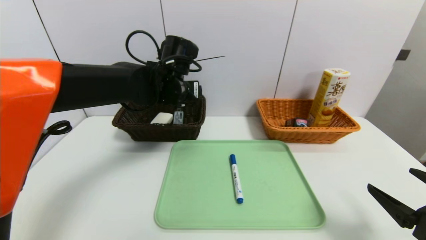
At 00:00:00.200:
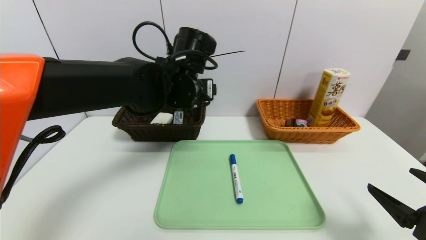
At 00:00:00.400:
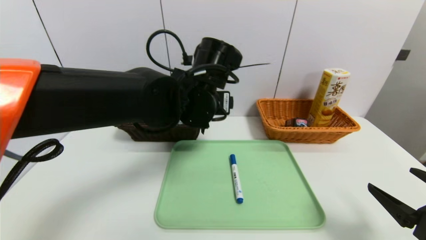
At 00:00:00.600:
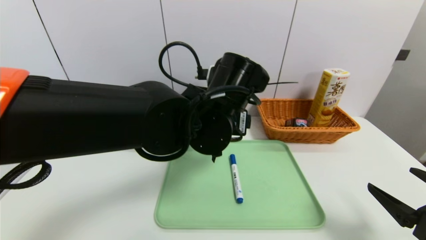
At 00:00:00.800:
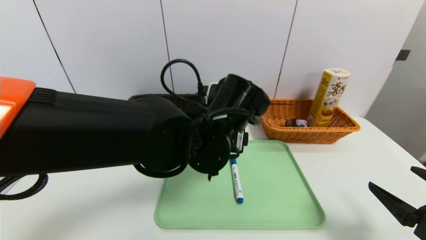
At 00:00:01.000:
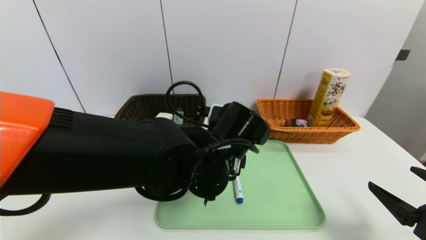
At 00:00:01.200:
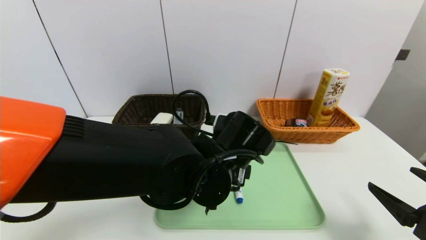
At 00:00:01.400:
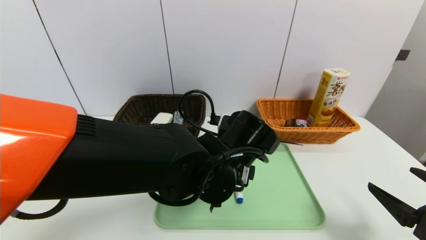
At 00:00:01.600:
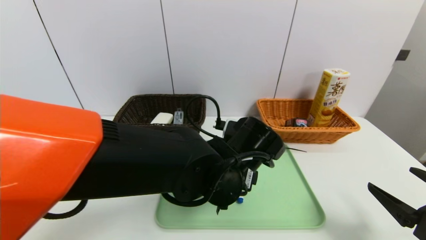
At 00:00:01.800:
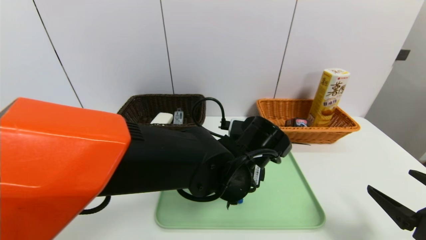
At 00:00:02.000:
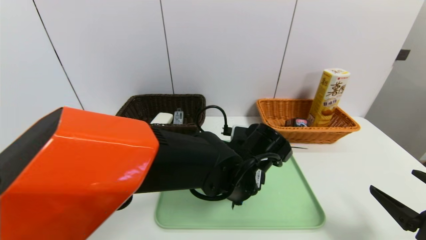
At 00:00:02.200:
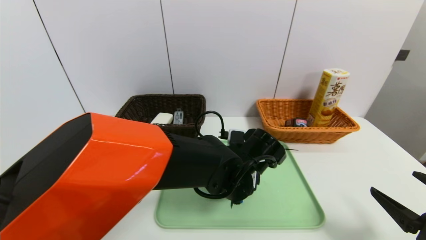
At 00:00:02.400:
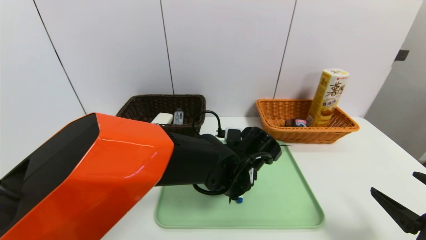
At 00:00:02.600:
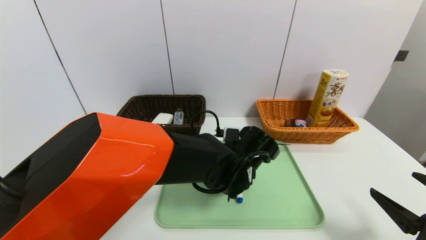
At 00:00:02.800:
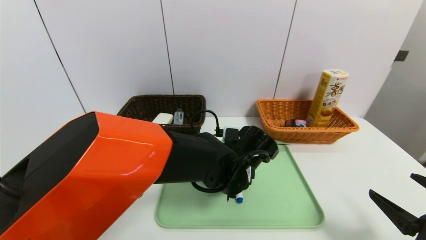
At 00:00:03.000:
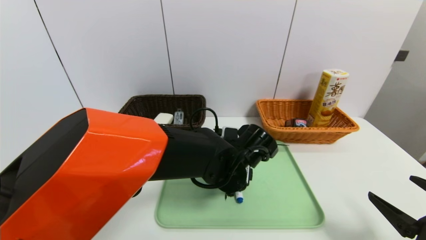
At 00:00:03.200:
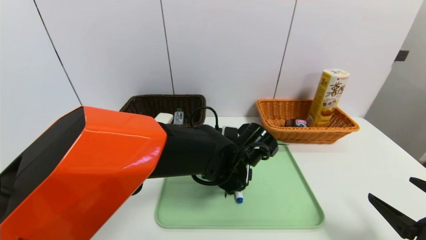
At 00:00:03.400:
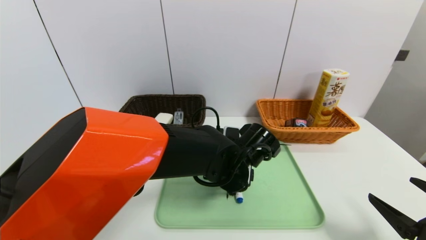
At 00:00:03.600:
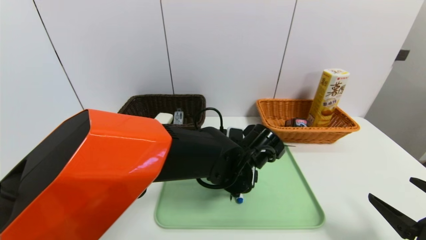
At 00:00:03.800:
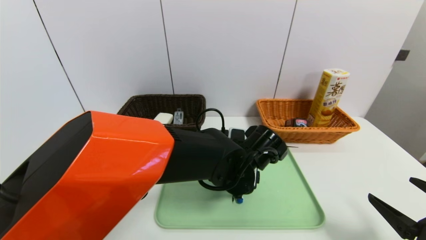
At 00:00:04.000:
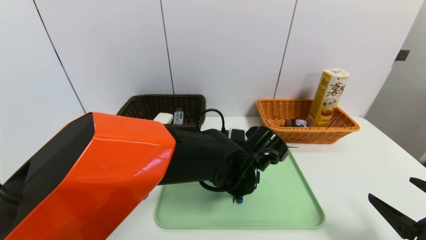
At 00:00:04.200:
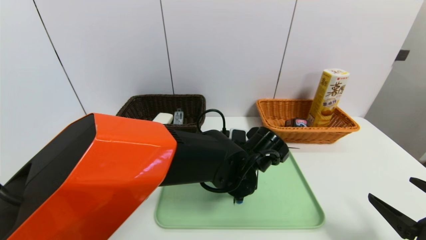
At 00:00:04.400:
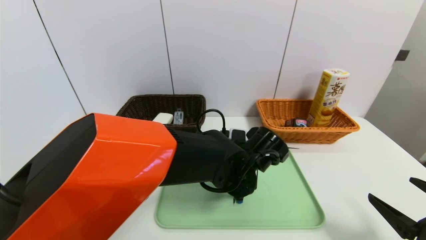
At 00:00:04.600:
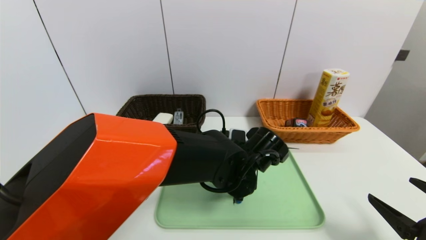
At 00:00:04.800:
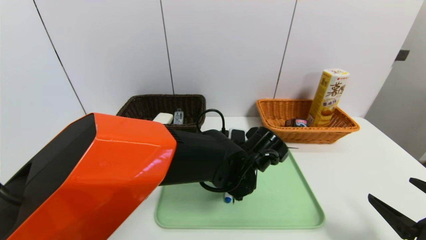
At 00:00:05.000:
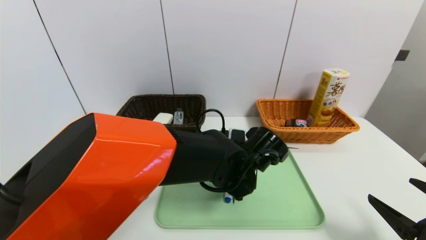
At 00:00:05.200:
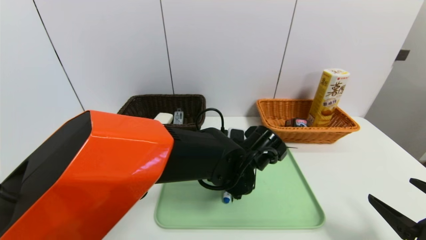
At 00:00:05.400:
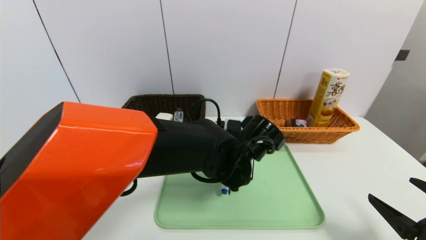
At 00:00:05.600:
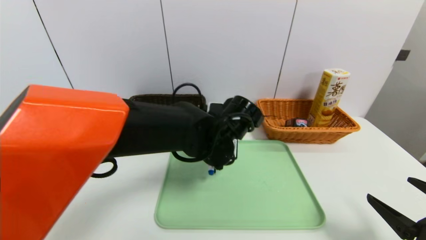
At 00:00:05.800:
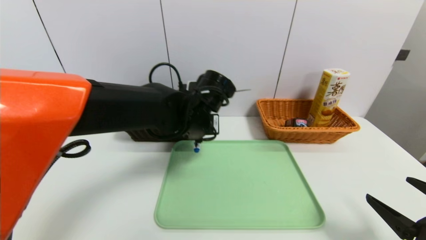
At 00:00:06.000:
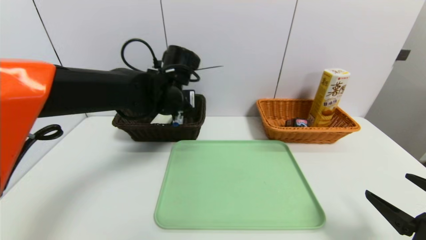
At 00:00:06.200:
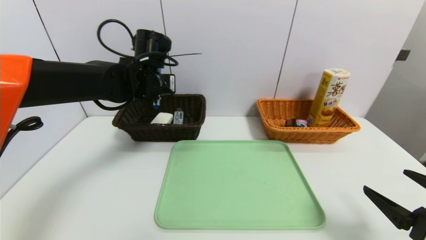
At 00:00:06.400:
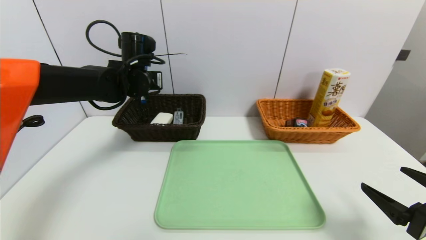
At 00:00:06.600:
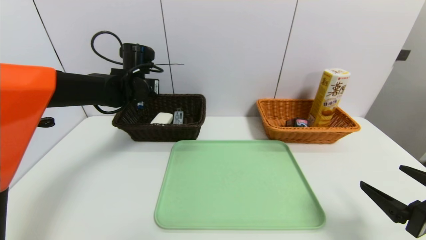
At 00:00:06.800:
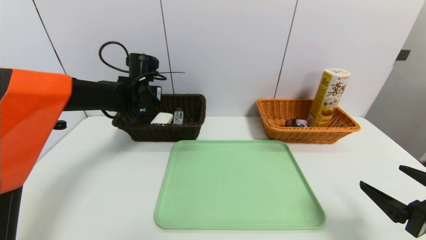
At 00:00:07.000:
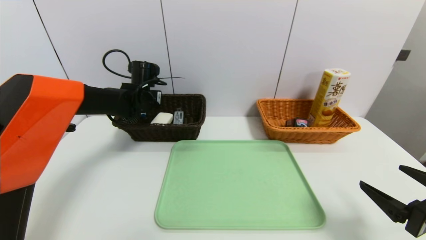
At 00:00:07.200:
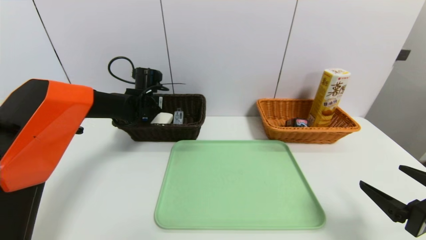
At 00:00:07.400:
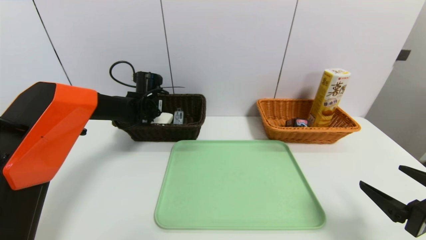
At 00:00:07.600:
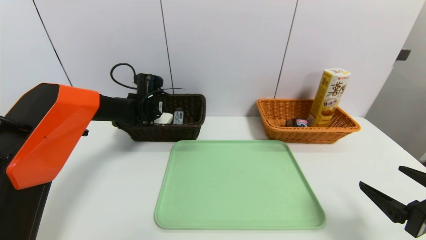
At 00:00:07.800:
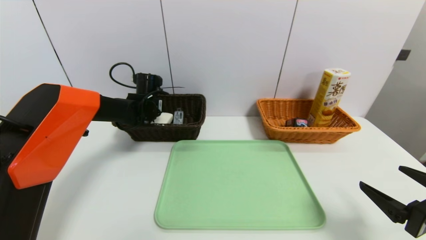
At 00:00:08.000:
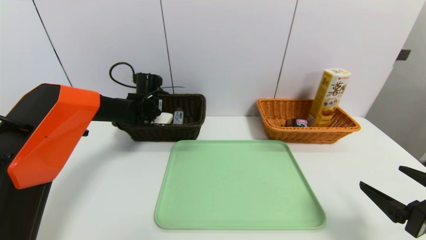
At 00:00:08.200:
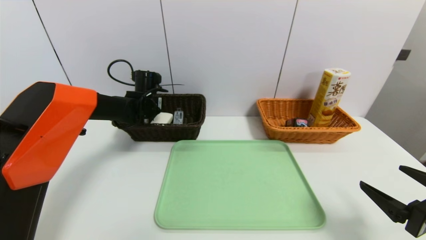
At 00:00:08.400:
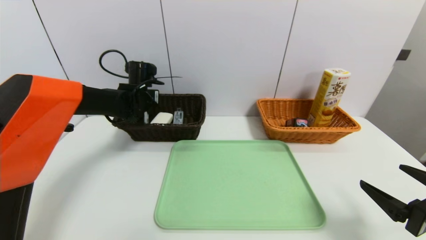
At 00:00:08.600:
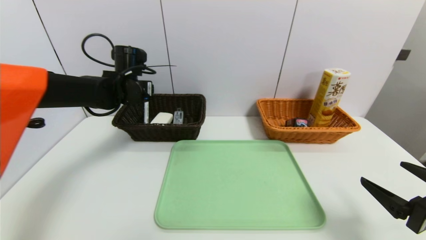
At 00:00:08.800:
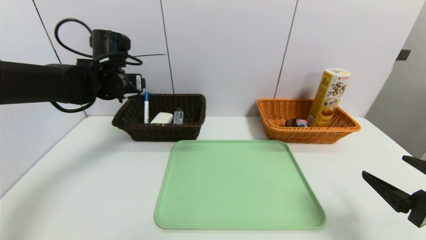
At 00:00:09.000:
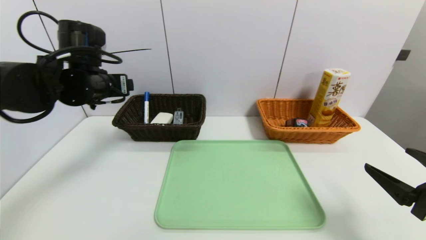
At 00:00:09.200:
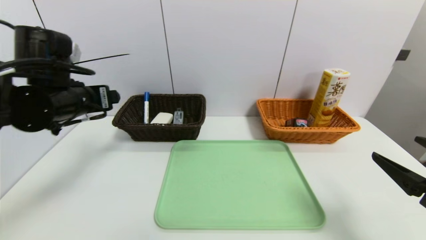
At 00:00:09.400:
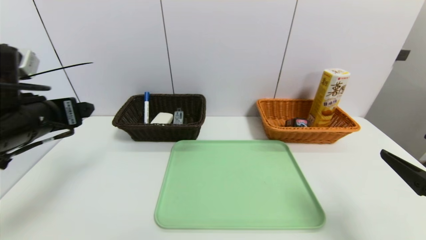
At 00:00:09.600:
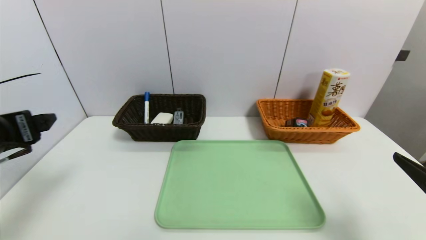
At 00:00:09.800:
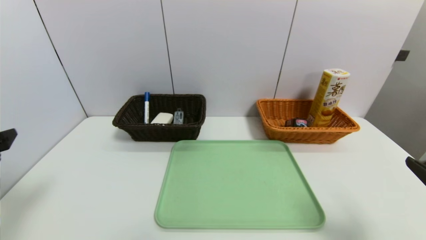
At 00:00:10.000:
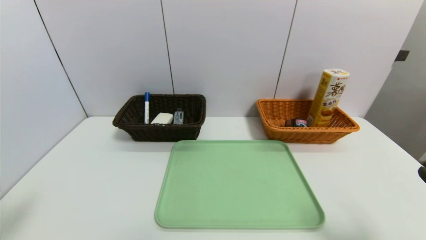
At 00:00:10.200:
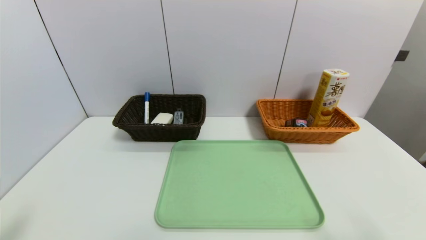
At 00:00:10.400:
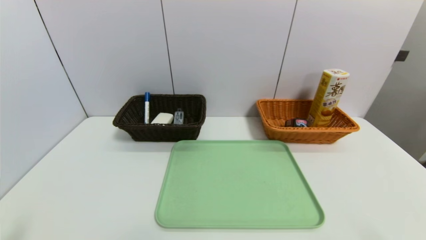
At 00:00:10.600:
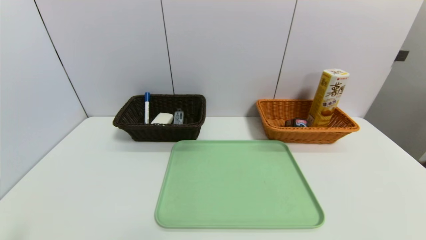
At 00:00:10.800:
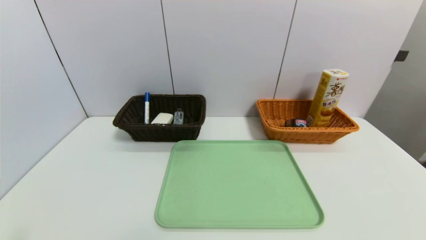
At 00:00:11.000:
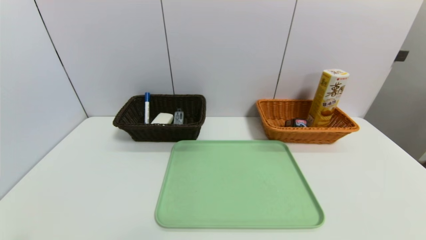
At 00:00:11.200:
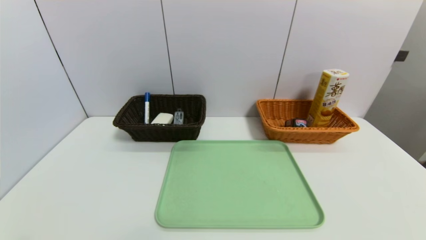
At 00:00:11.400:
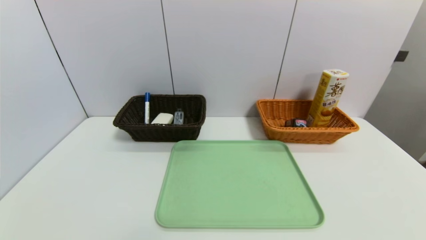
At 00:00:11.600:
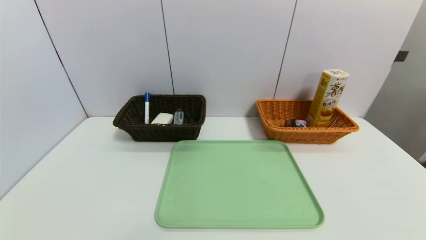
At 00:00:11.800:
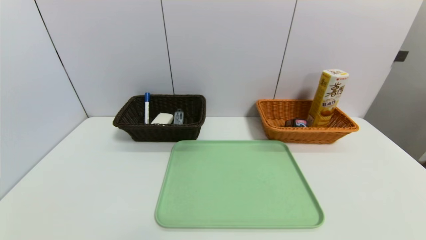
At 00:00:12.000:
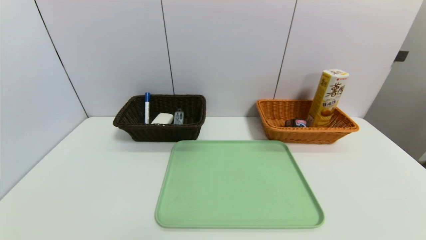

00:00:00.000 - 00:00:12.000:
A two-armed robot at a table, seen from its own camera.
Task of the whole recording: place the food in the right basket with the right gripper, and place the non food items in the left basket with the left gripper.
Step, 00:00:00.000 - 00:00:08.600: Grasp the blue marker and put it in the left basket.
00:00:00.000 - 00:00:01.600: The left gripper heads backward, to the right and downward, covering about 20 cm.
00:00:01.600 - 00:00:03.000: The left gripper changes place by about 5 cm.
00:00:03.000 - 00:00:04.400: The left gripper closes up.
00:00:04.400 - 00:00:06.000: The left gripper moves to the left, upward and forward, roughly 20 cm, and closes its fingers.
00:00:06.000 - 00:00:07.600: The left gripper heads forward, to the left and downward, covering about 15 cm.
00:00:07.600 - 00:00:09.000: The left gripper heads backward and upward, covering roughly 20 cm, and opens its fingers.
00:00:09.000 - 00:00:10.400: The left gripper travels backward by roughly 30 cm, while the right gripper is displaced backward by some 10 cm.

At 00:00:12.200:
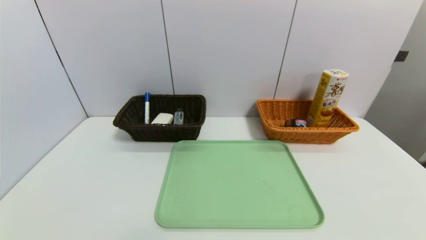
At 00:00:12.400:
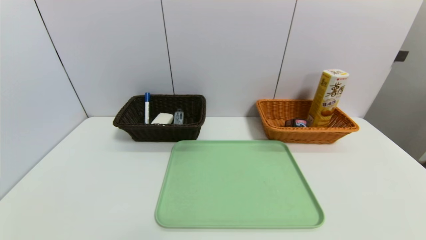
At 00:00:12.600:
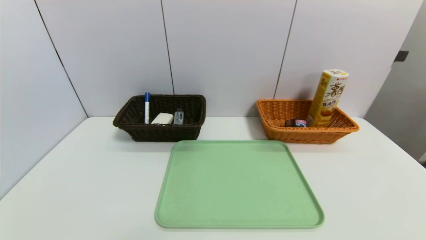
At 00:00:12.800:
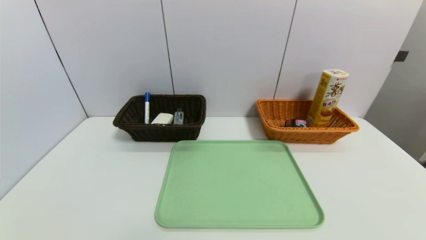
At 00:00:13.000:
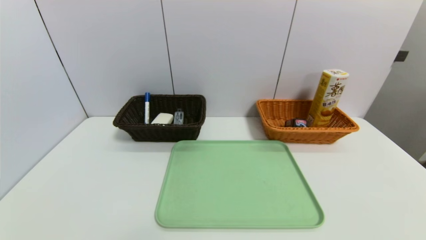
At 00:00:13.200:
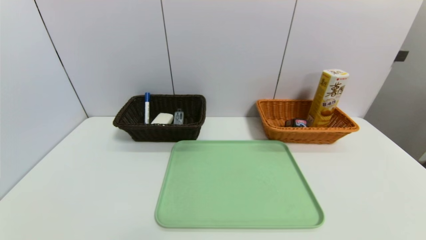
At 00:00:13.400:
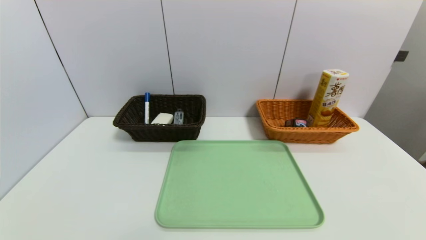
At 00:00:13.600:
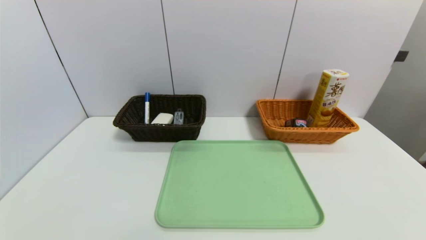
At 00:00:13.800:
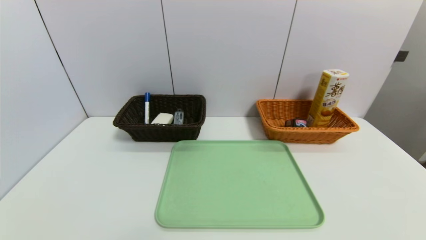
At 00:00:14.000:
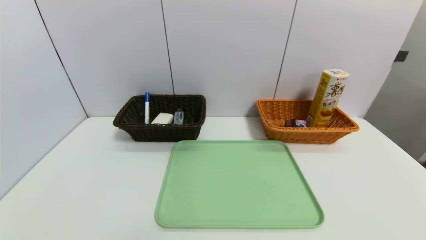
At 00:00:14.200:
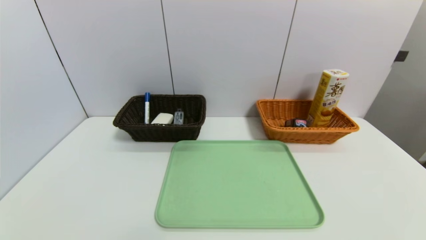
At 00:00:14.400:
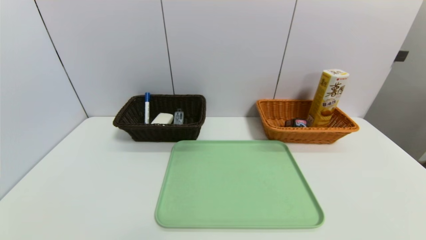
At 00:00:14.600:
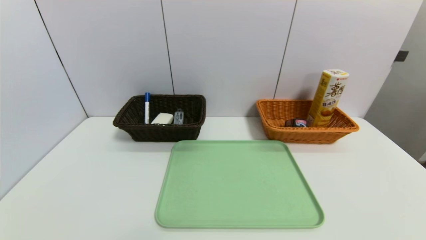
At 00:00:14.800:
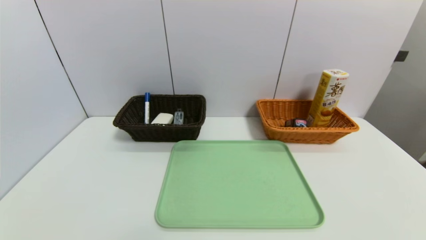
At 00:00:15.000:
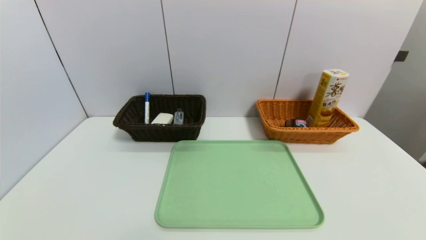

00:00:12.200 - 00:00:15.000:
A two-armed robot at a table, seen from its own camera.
Task of the whole recording: place the food in the right basket with the right gripper, and place the non food items in the left basket with the left gripper.
00:00:13.600 - 00:00:15.000: Both grippers stay about where they are.
